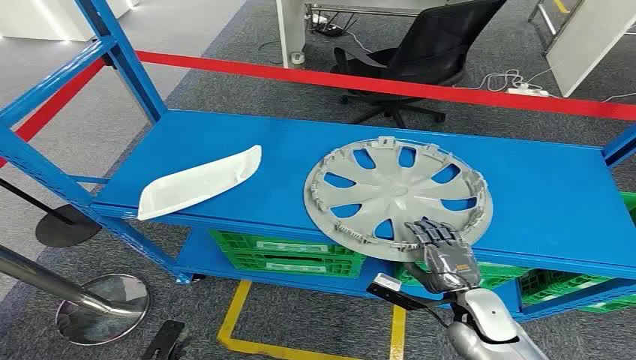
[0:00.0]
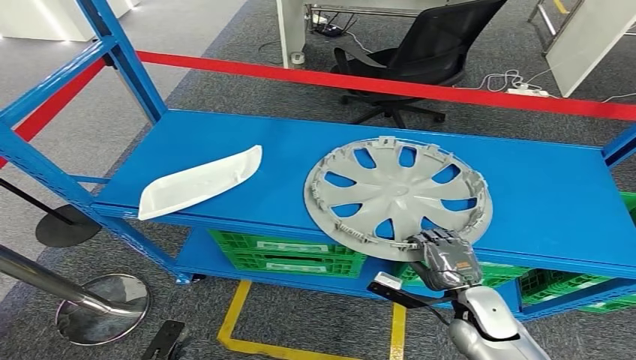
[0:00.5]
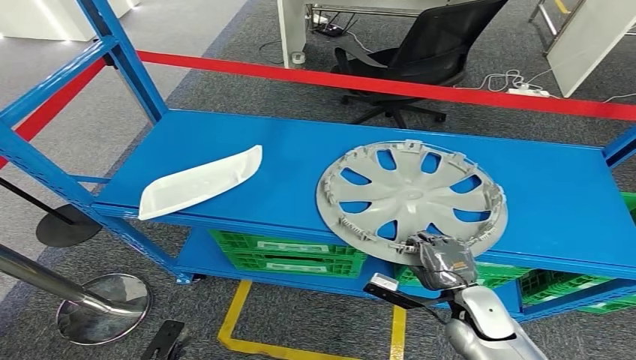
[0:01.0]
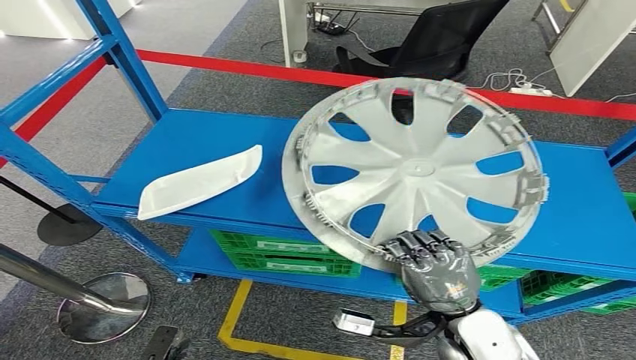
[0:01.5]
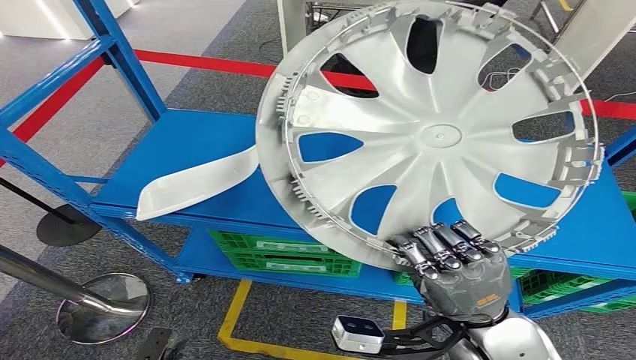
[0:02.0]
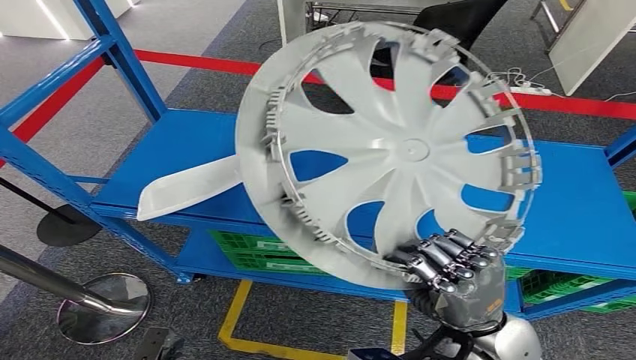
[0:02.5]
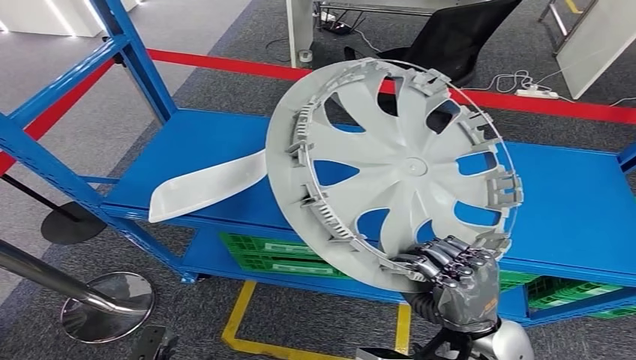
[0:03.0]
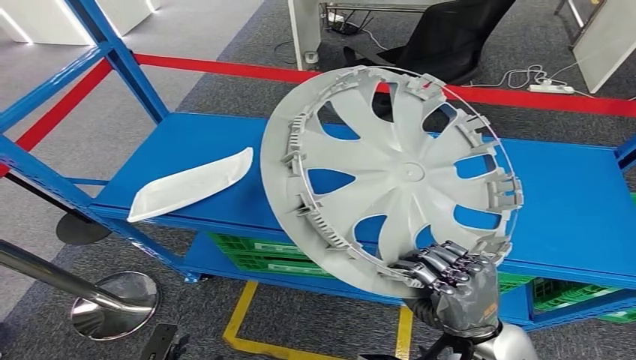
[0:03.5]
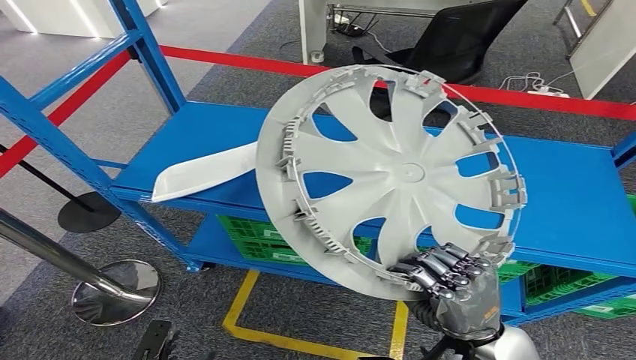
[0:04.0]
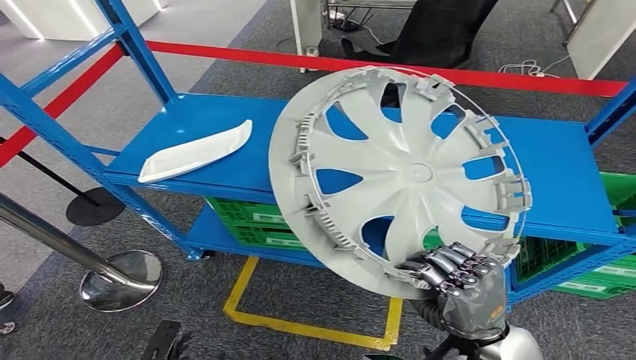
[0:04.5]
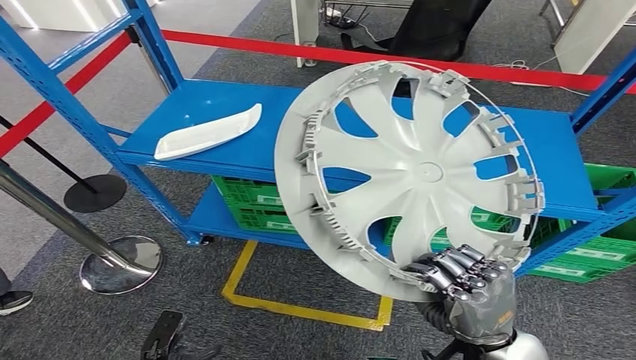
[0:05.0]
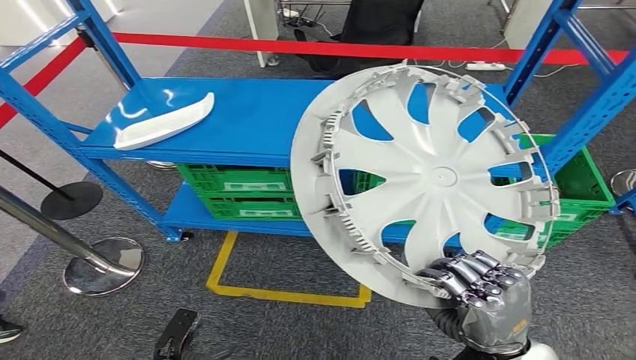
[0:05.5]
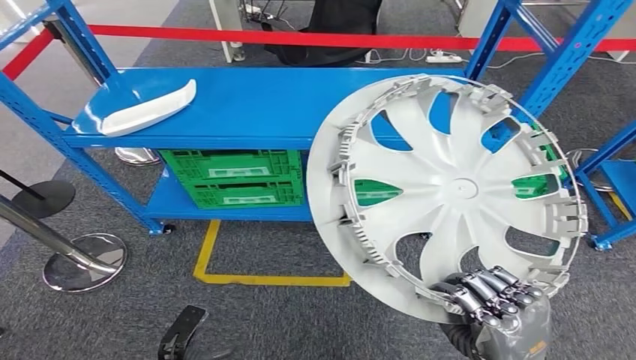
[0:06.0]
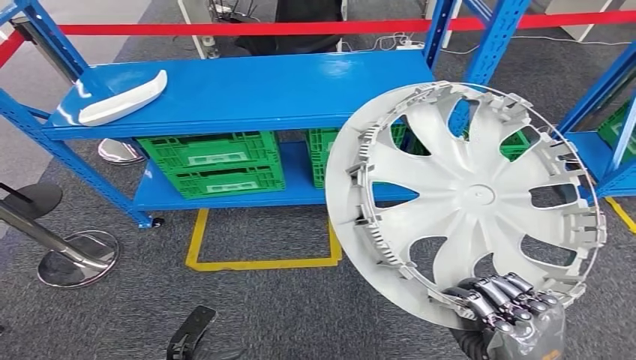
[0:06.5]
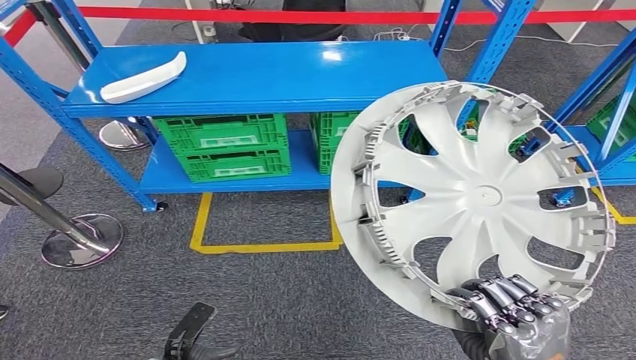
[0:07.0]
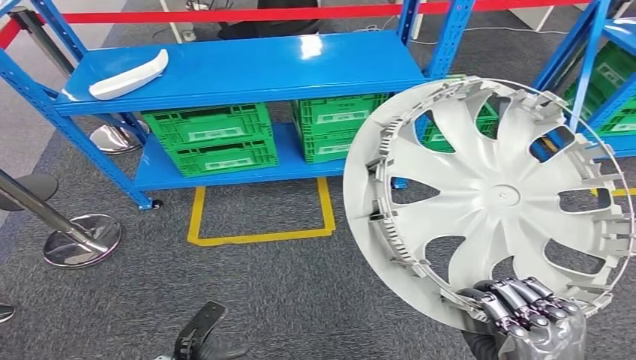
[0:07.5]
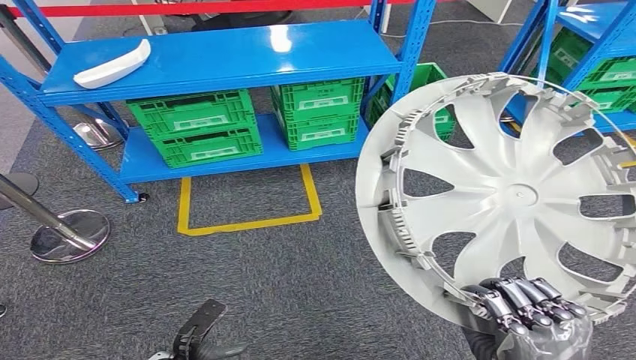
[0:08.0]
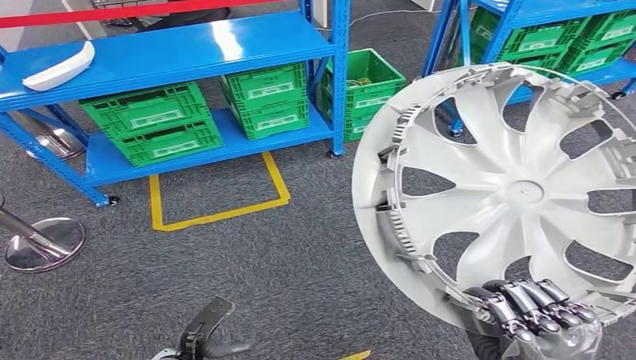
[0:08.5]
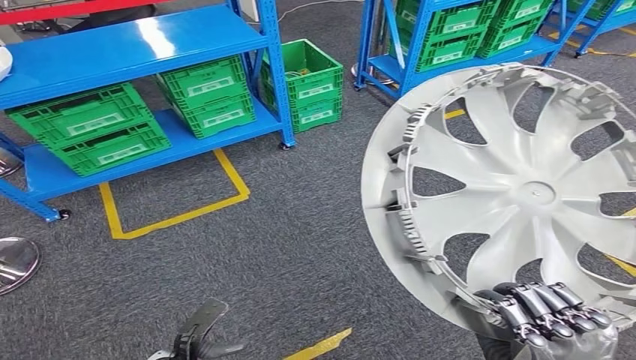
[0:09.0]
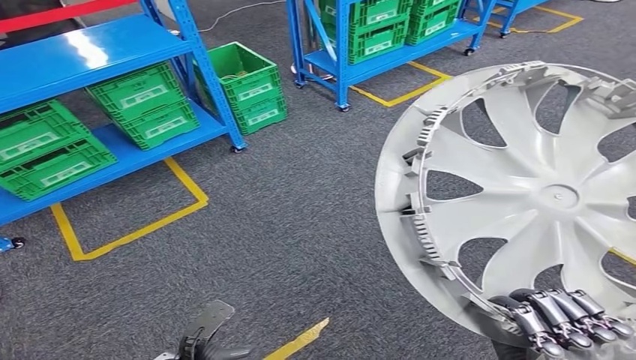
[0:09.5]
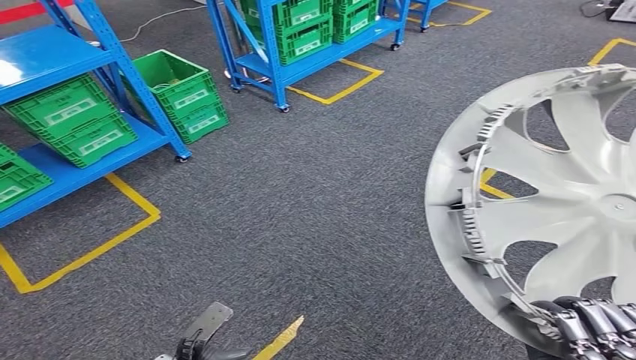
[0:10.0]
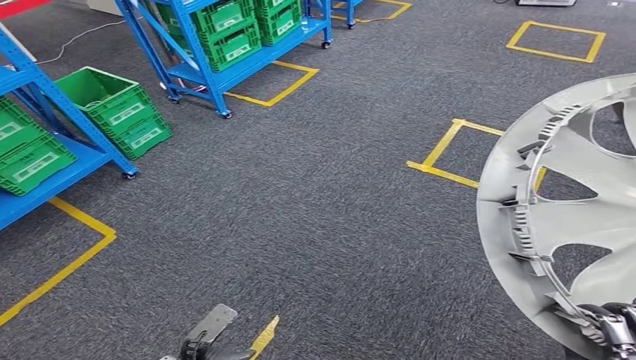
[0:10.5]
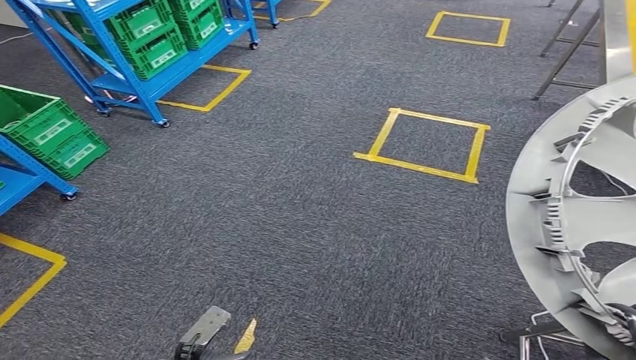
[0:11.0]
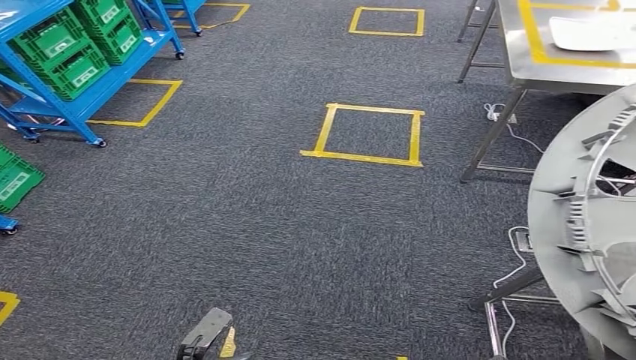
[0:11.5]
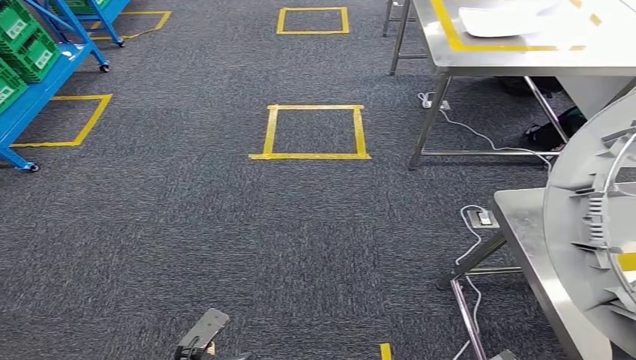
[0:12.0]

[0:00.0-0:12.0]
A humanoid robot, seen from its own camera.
Step, 0:00.0 to 0:03.0: Pick up the small component from the shelf.

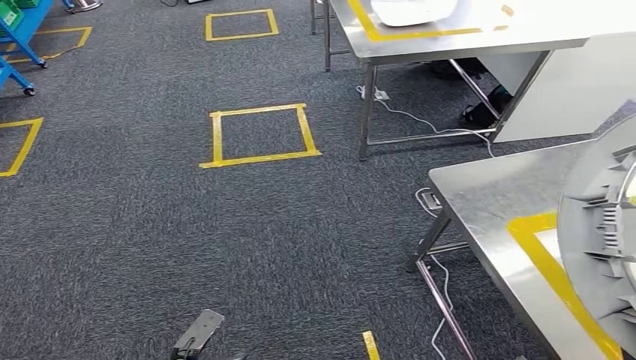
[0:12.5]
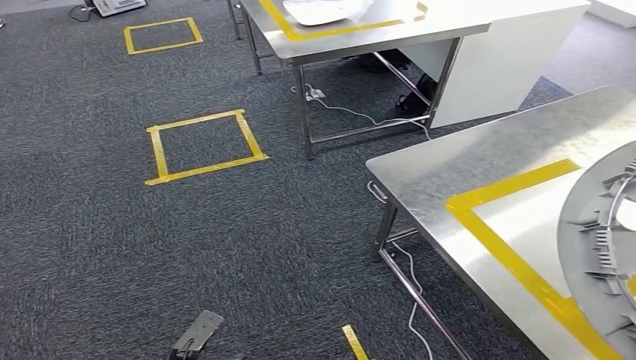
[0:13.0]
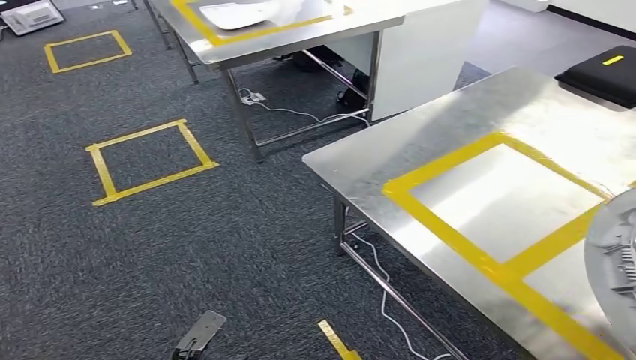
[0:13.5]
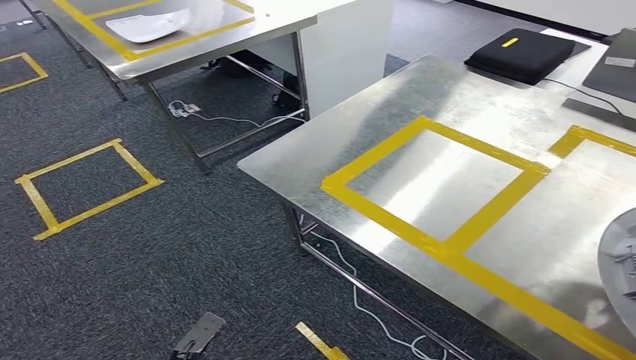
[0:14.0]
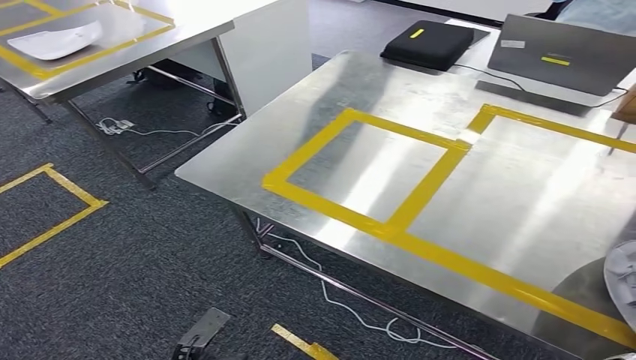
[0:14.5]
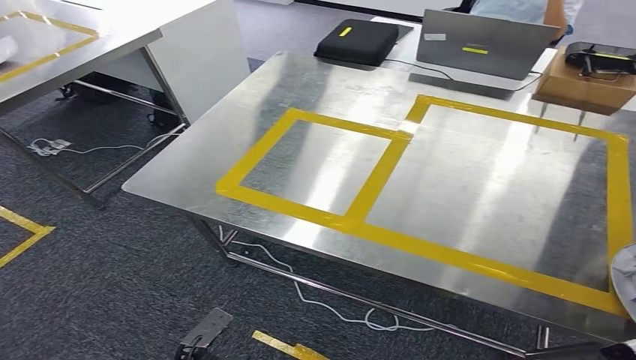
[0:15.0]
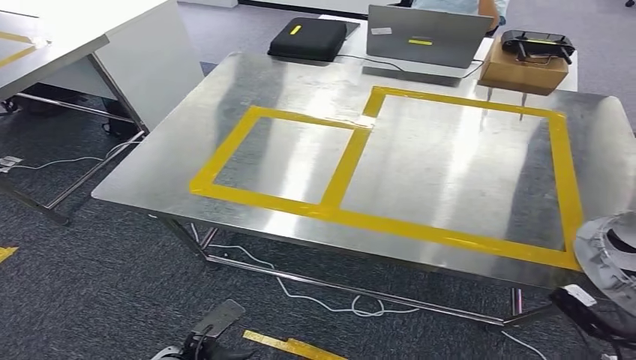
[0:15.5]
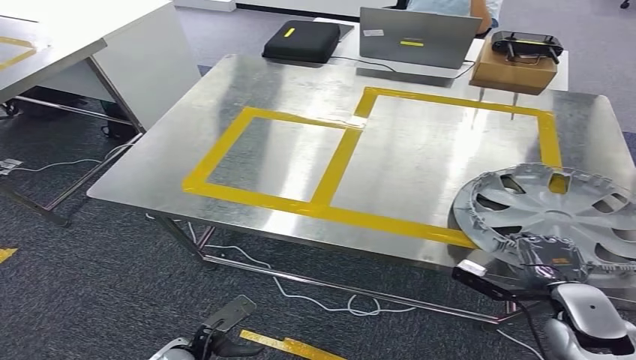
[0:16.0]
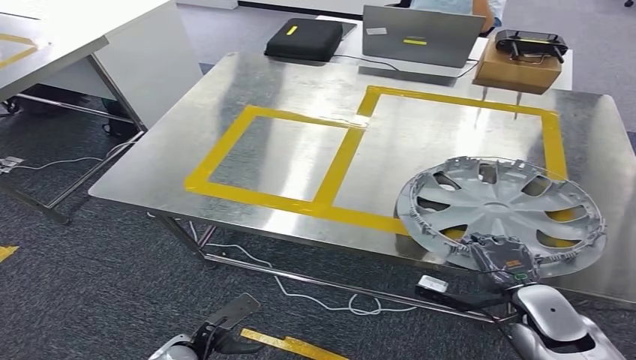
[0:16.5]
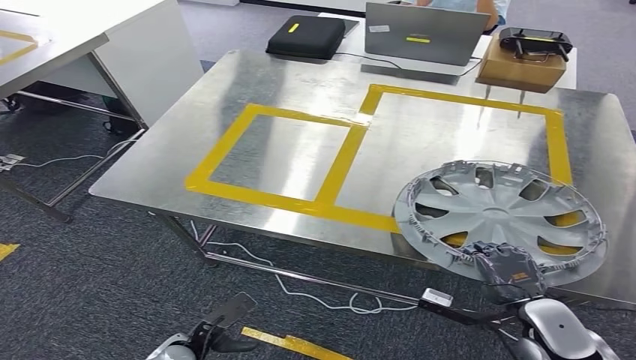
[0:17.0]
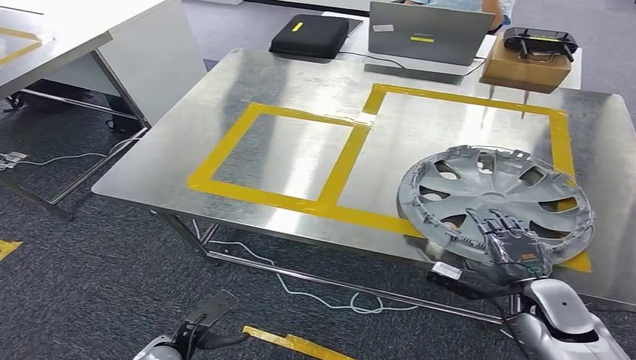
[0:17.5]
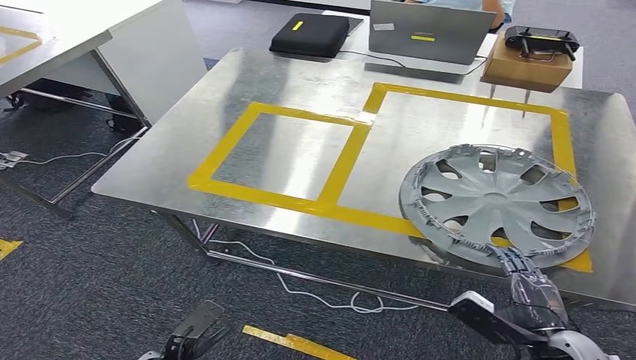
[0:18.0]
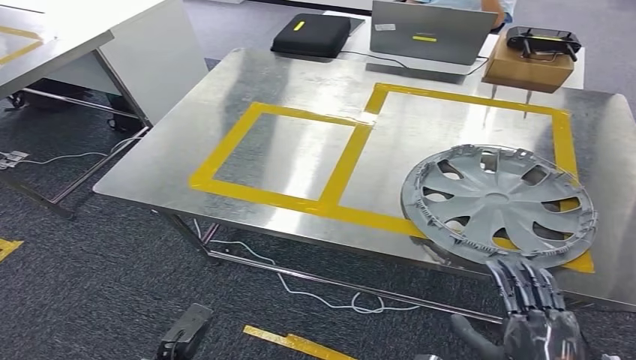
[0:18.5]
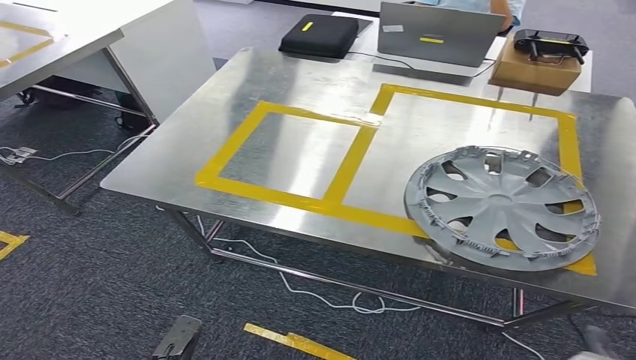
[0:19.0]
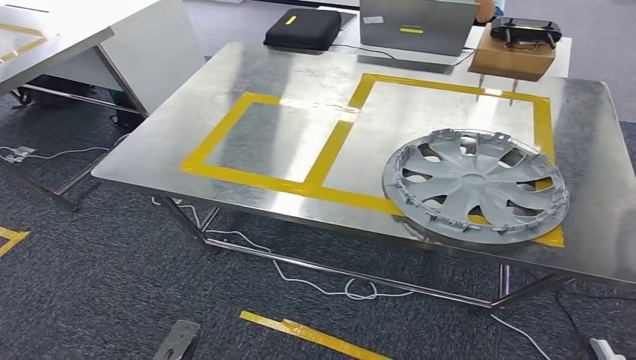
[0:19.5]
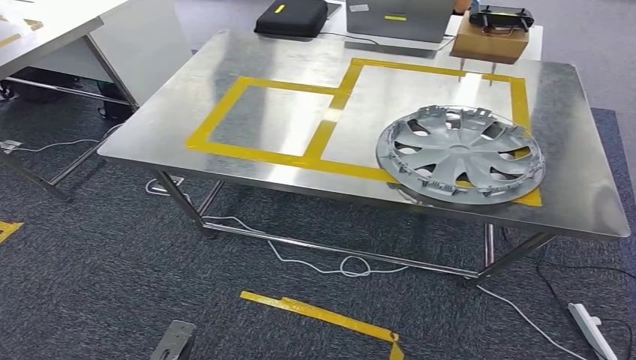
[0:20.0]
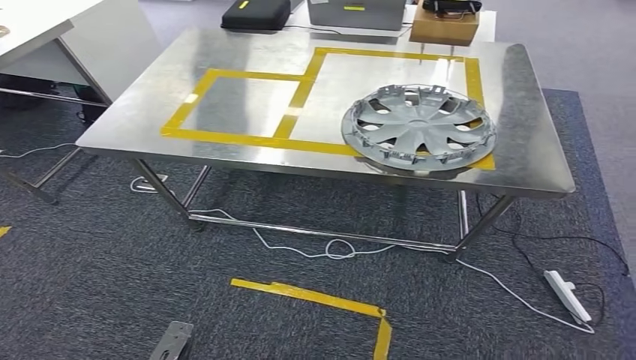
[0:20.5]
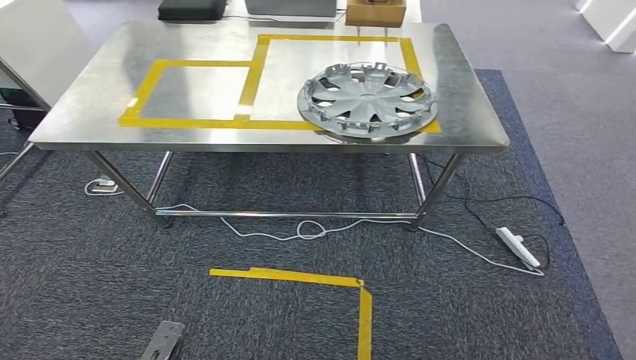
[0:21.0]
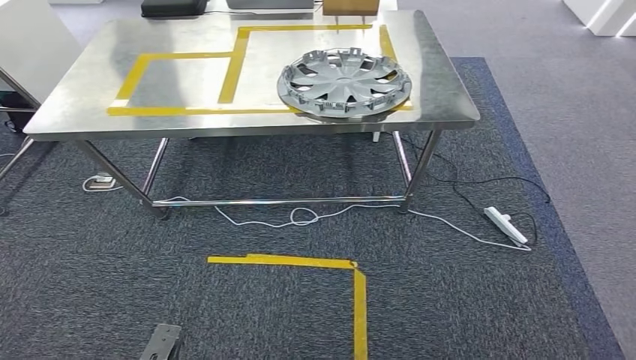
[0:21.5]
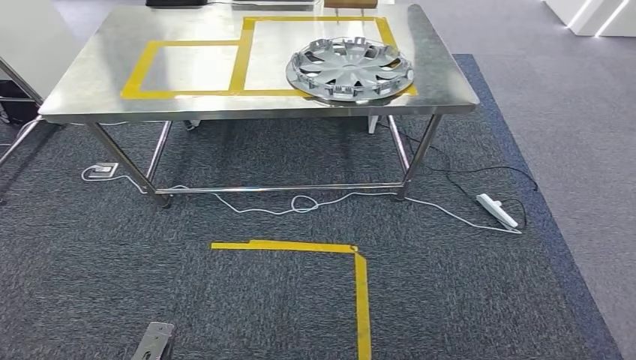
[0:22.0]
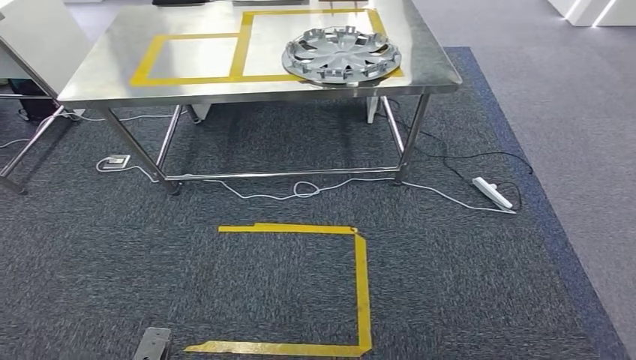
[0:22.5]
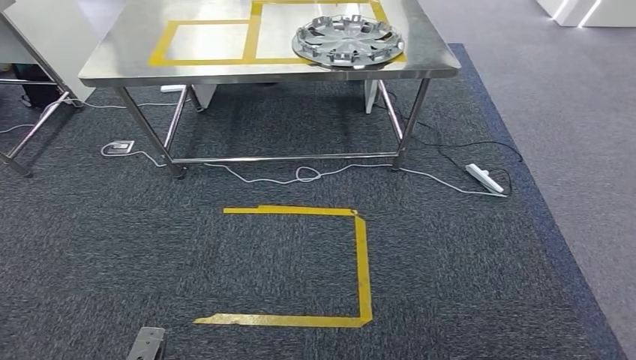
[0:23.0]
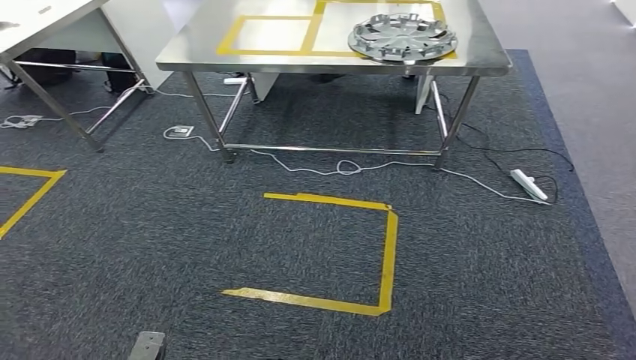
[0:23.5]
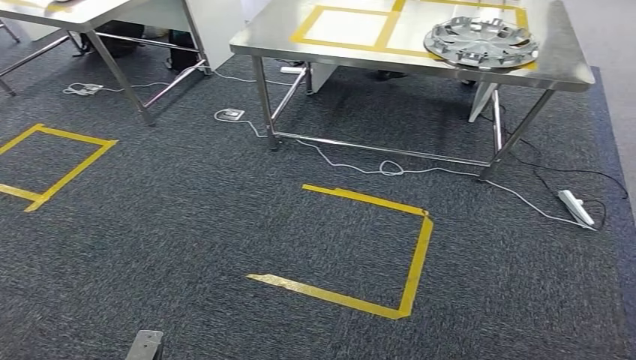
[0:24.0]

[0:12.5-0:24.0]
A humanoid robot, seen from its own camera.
Step, 0:13.5 to 0:18.5: Insert the small component into the corresponding slot on the workbench.
